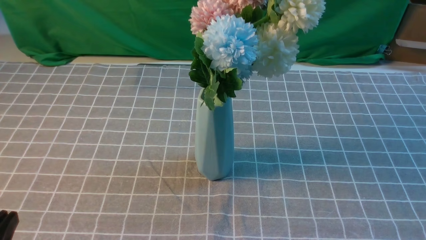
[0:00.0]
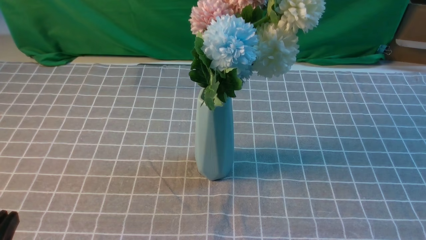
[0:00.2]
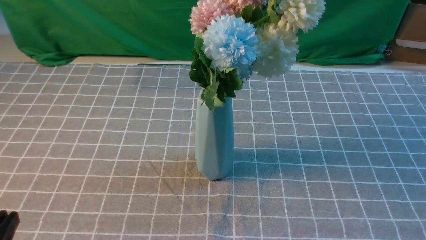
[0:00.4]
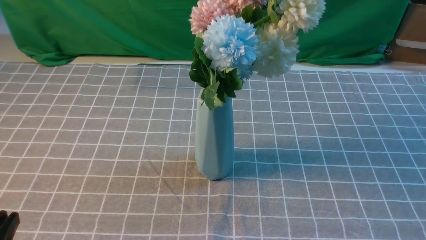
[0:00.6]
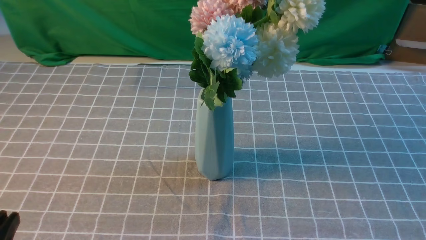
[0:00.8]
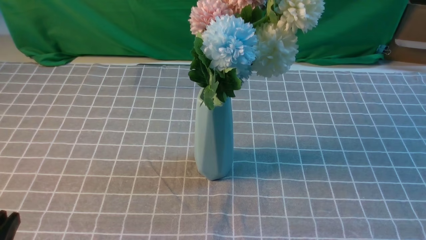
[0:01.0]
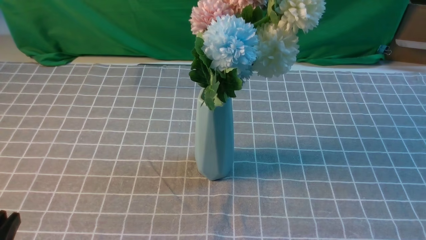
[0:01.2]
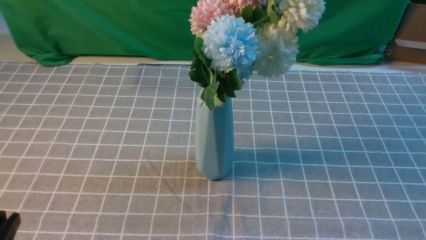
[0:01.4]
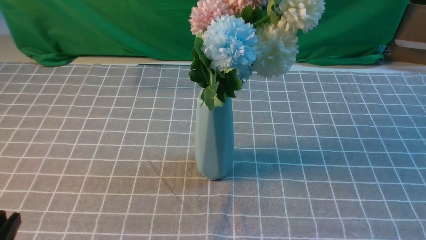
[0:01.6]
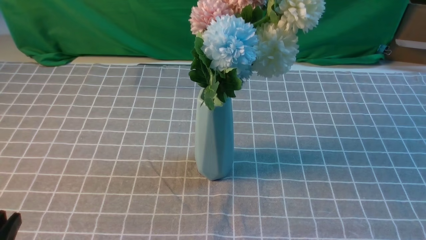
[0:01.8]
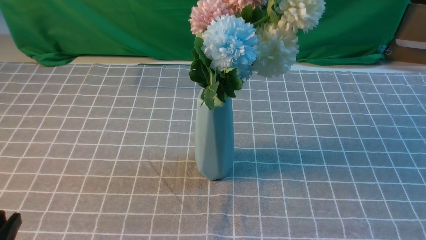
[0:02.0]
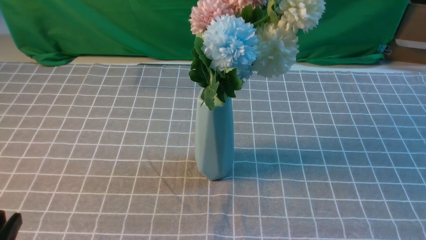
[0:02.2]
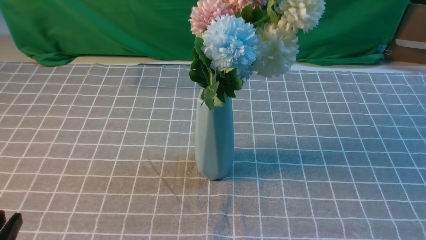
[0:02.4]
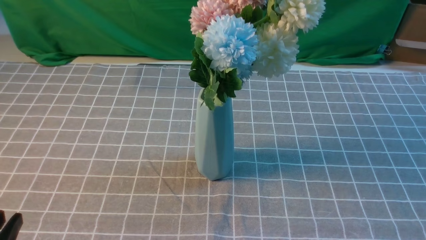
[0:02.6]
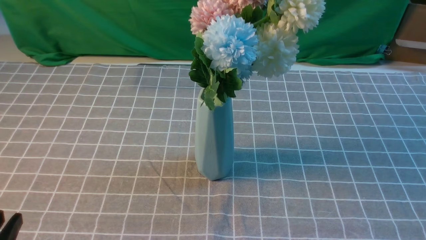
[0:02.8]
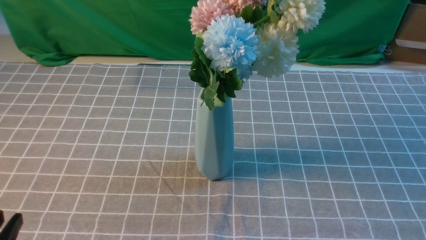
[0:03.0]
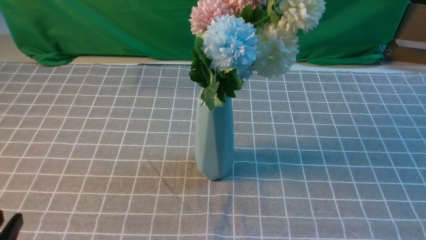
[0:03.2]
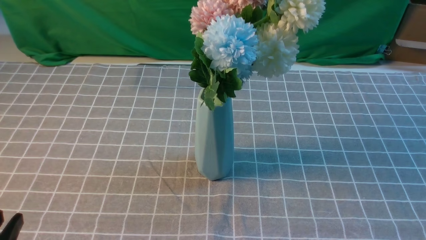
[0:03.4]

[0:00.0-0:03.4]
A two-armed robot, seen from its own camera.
Task of the whole recording: insert the flowers into the vase on the table with the grey tablecloth.
0:01.6 to 0:03.4: The two grippers keep their place.

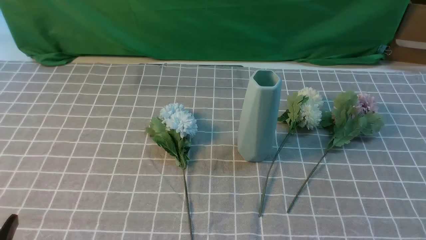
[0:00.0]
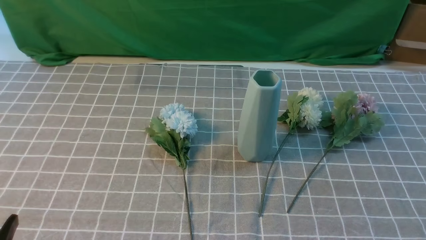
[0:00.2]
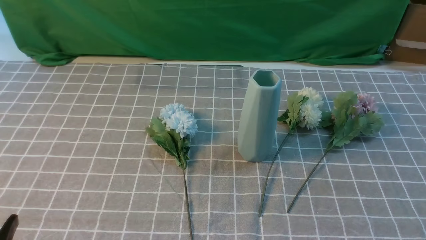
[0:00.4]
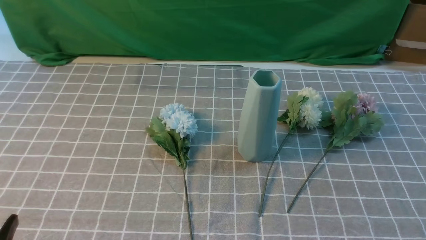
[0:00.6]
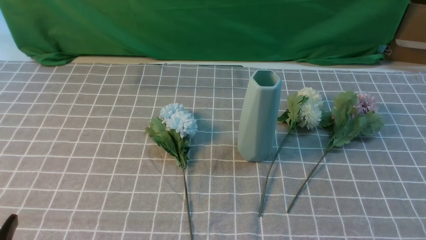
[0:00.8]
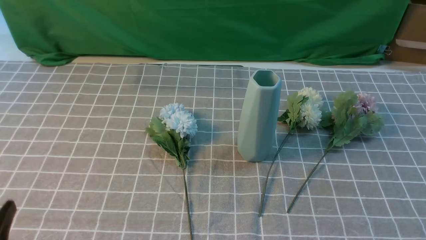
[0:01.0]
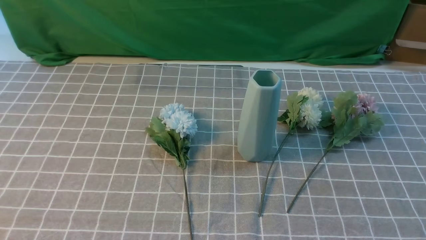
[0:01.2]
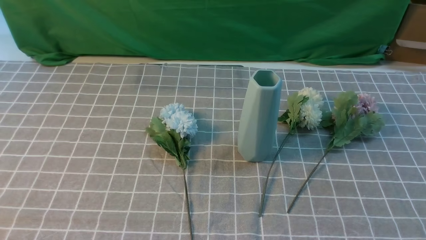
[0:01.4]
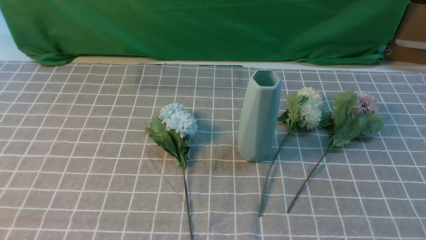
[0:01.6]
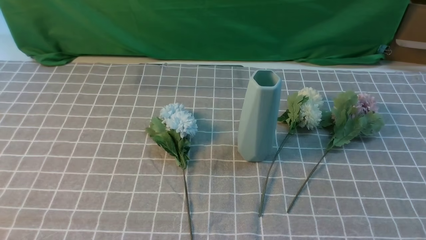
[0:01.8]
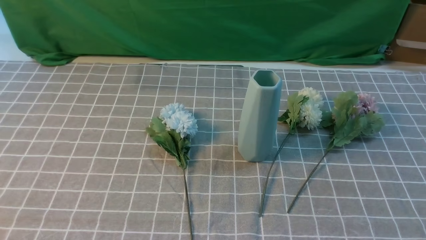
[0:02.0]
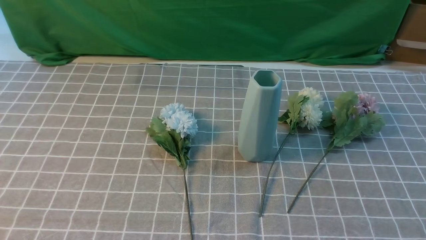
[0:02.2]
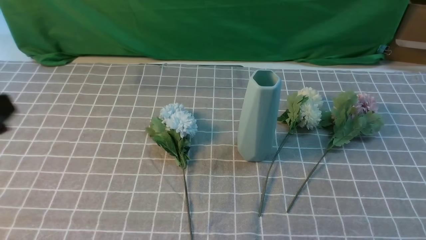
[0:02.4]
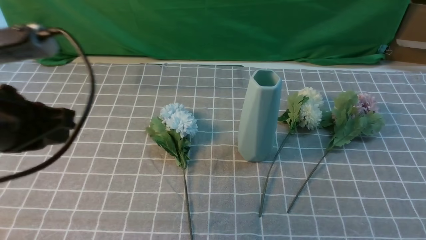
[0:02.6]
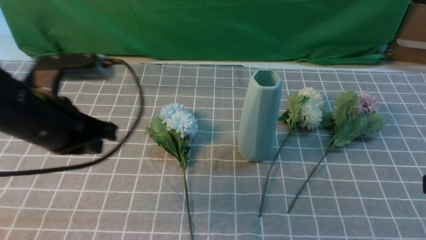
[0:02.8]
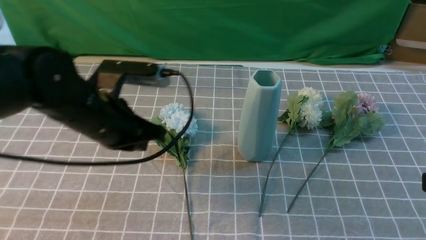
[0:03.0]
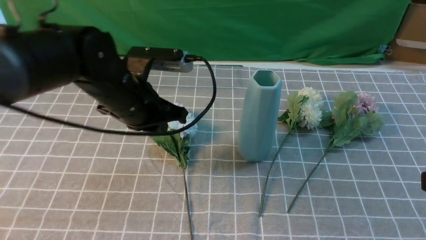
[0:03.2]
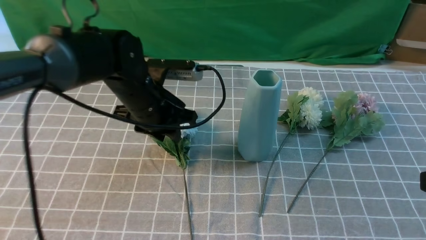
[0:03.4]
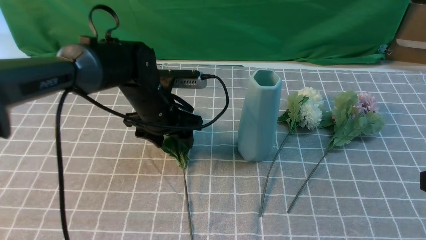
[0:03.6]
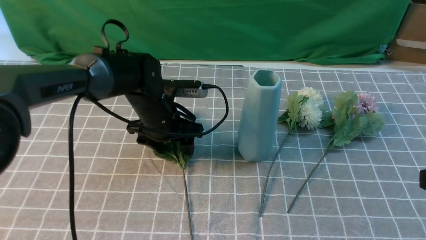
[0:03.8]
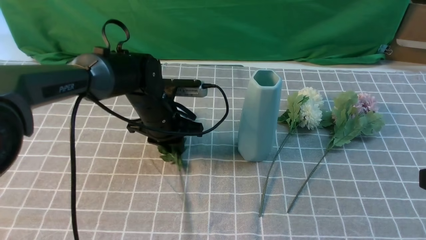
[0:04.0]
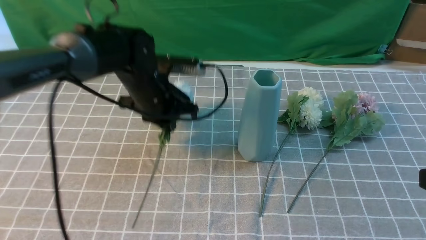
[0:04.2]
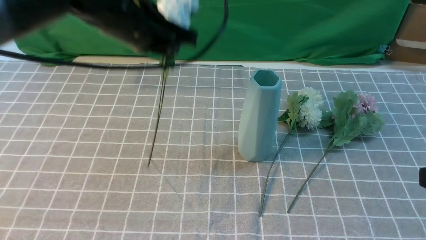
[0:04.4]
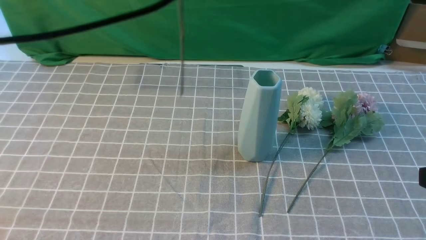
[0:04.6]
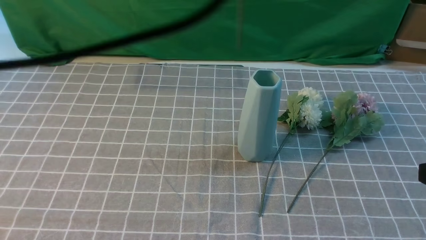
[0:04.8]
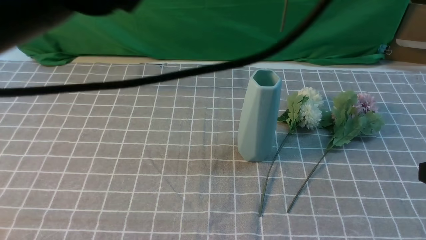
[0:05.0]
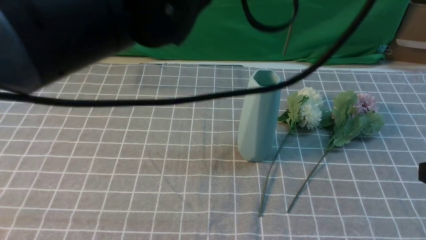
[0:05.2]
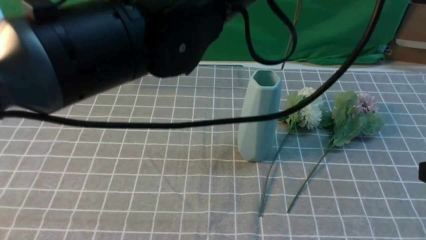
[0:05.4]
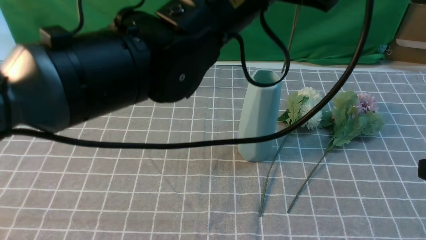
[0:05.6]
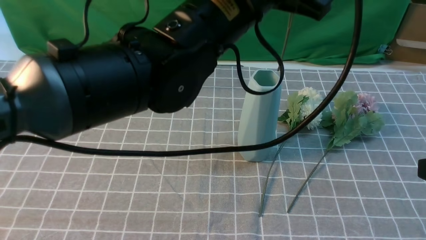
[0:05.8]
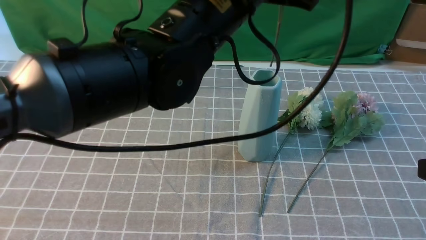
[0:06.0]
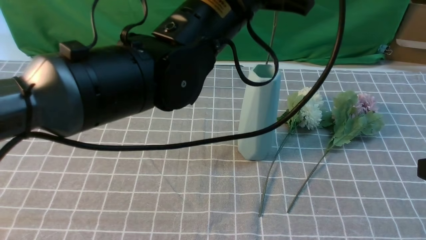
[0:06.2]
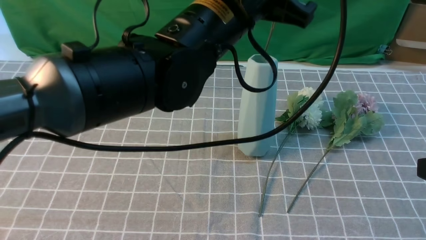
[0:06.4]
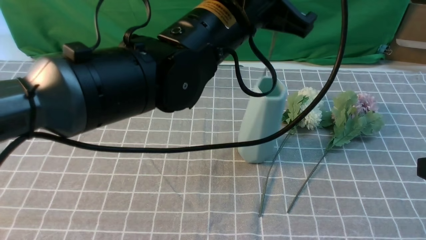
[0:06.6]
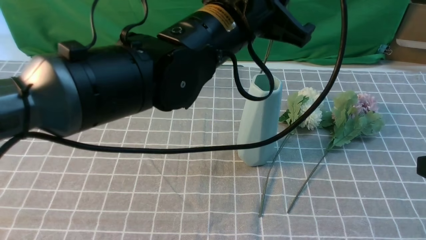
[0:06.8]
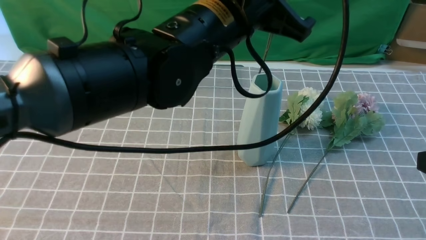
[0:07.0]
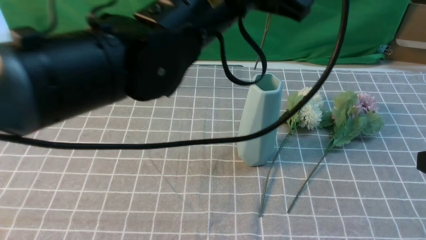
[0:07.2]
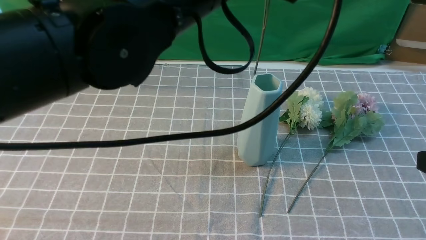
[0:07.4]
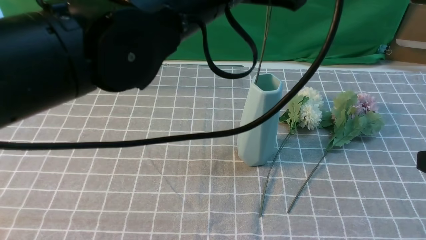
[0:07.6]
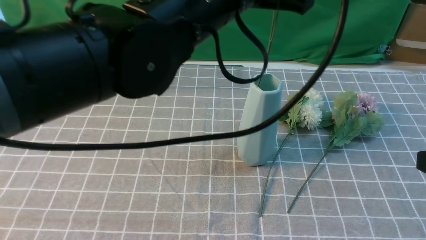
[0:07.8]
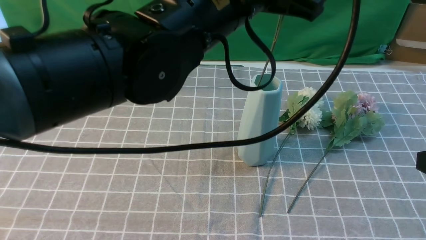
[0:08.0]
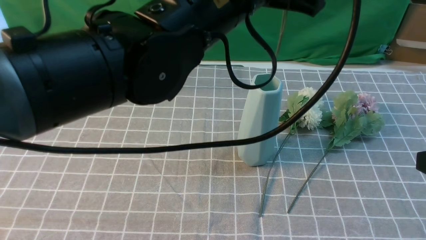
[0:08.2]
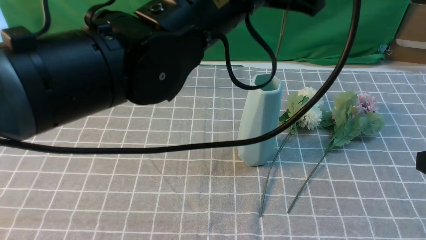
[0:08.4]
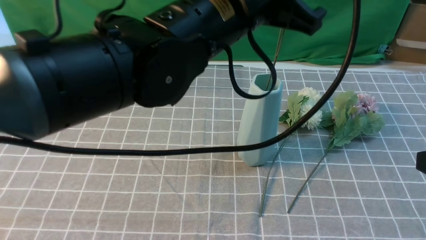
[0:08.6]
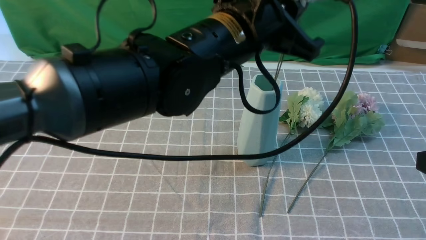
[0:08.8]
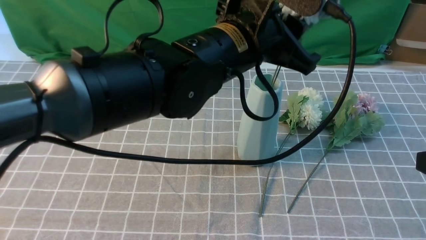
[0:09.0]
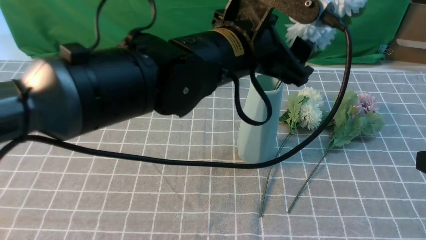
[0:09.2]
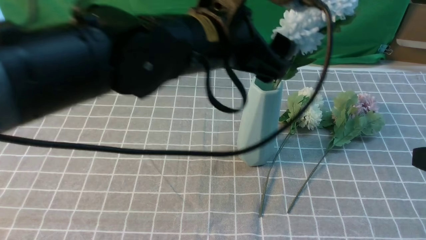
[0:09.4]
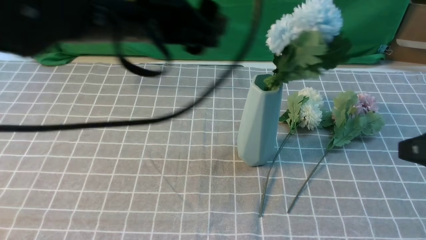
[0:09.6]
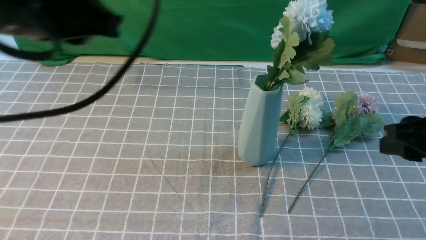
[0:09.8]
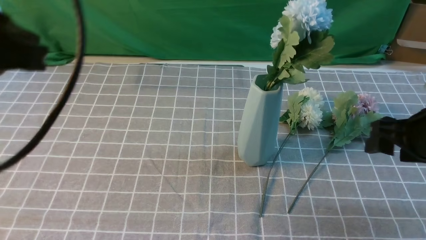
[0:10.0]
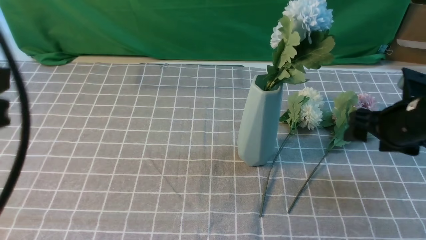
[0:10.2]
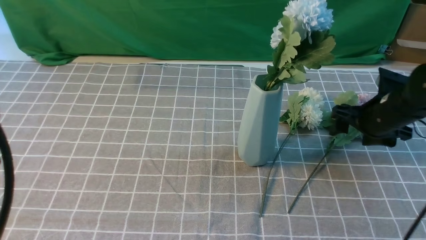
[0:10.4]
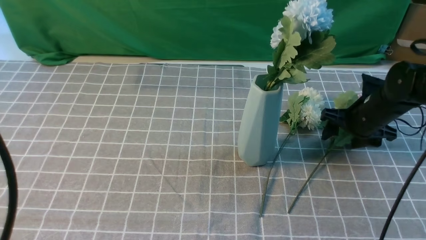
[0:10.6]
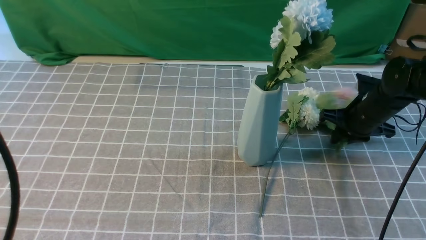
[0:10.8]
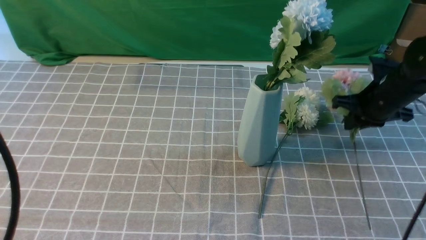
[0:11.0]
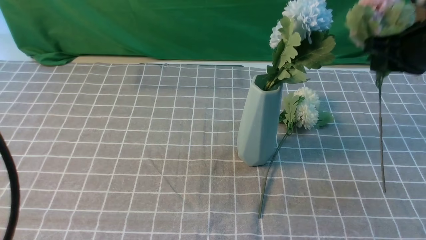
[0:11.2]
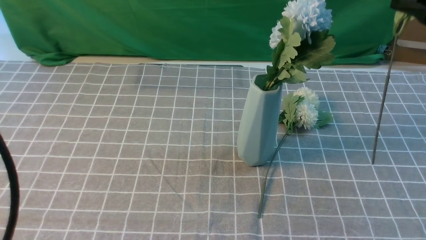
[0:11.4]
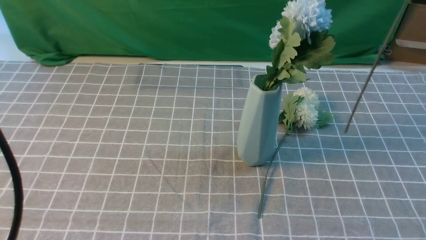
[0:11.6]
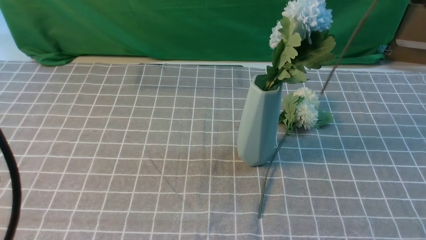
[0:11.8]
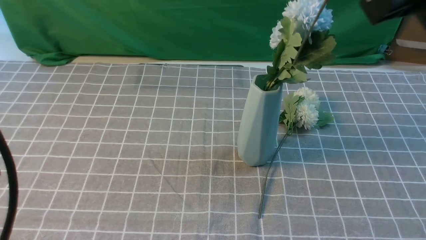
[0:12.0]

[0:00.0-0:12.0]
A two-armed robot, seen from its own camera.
Task of the whole recording: insert the flowers into the vase on the table with the grey tablecloth.
Step, 0:00.0 to 0:04.0: use the left arm to grab a bunch of fresh flowers.
Step, 0:04.2 to 0:09.2: use the left arm to insert the flowers into the vase.
Step, 0:09.4 to 0:10.8: use the right arm to grab a bunch of fresh flowers.
0:01.6 to 0:03.0: The right gripper moves upward and forward, approximately 15 cm. The left gripper heads forward and to the right, covering approximately 30 cm, and closes its fingers.
0:03.0 to 0:04.4: The left gripper shifts approximately 15 cm upward, to the right and forward, and opens, then closes once more.
0:04.4 to 0:06.0: The left gripper is displaced to the right and backward by some 10 cm, and moves some 10 cm upward and comes back.
0:07.6 to 0:09.0: The left gripper shifts roughly 5 cm downward, and opens.
0:09.0 to 0:10.4: The right gripper moves forward and downward, approximately 30 cm, and opens; the left gripper goes about 30 cm to the left and backward, and closes its fingers.
0:10.4 to 0:12.0: The right gripper shifts about 30 cm upward and backward, and closes up.

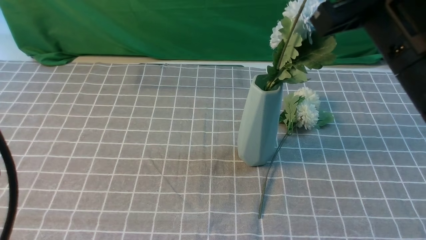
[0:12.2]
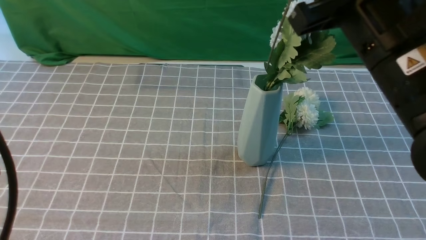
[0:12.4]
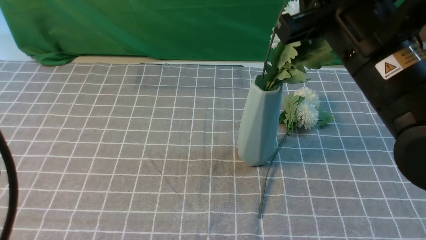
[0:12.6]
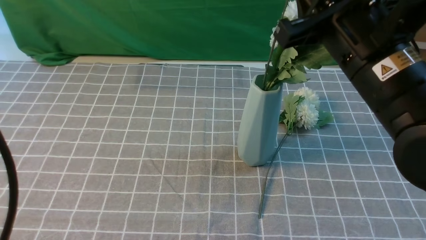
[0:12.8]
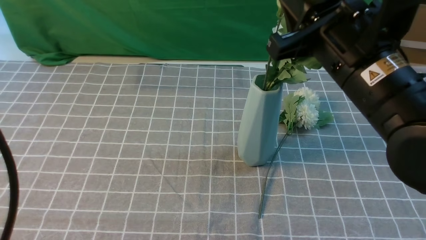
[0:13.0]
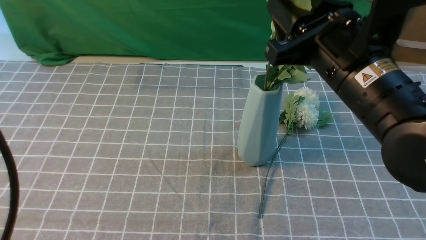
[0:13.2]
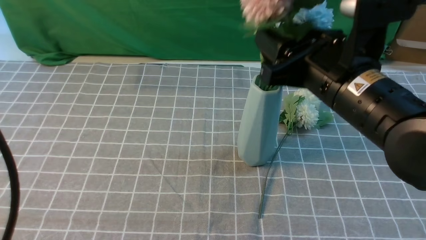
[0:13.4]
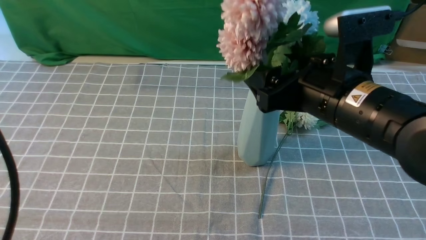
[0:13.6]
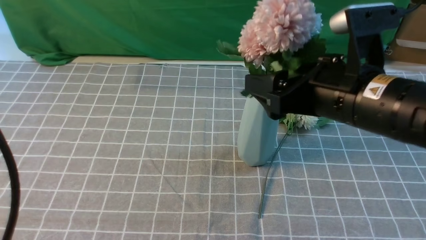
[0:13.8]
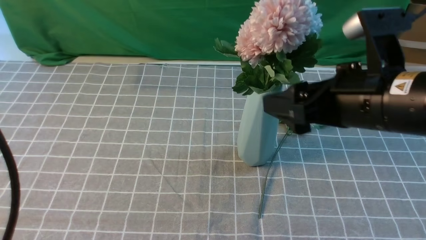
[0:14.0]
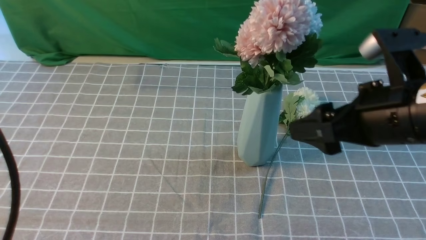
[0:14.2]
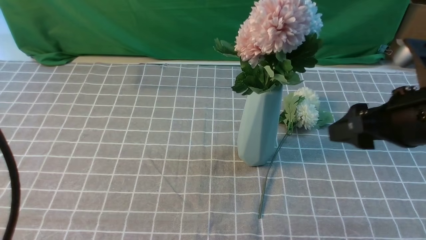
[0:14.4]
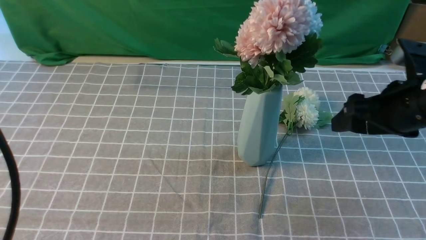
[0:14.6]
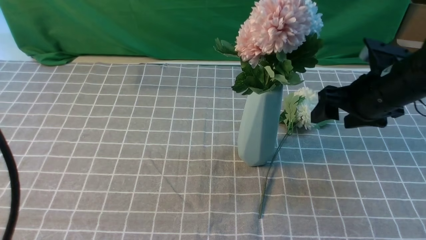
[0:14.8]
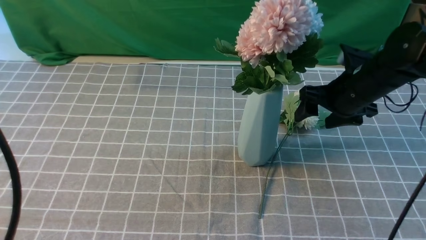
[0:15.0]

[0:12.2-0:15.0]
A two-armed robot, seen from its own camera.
Task of the whole recording: insert the flowers into the vase on the table with the grey tablecloth.
Step, 0:12.2 to 0:13.8: use the right arm to insert the flowers into the vase.
0:12.2 to 0:13.6: The right gripper shifts approximately 5 cm downward, and opens up.
0:13.6 to 0:15.0: The right gripper is displaced forward, downward and to the right by about 20 cm.
